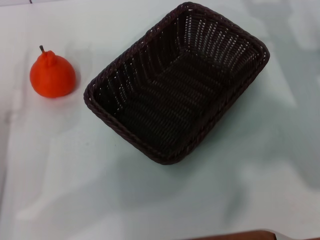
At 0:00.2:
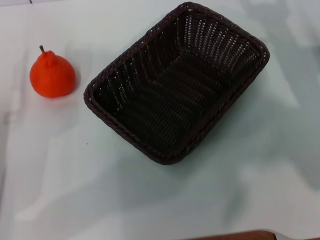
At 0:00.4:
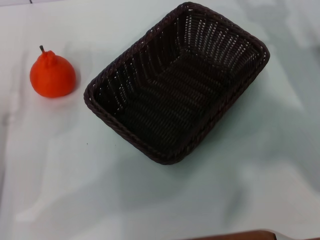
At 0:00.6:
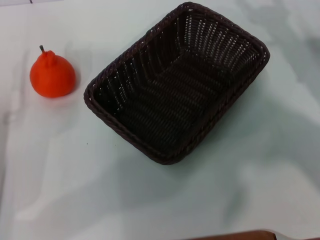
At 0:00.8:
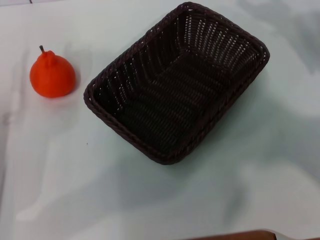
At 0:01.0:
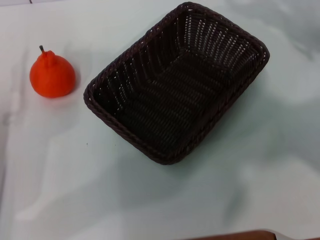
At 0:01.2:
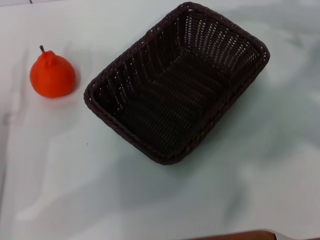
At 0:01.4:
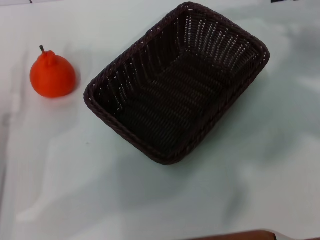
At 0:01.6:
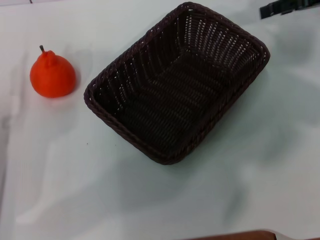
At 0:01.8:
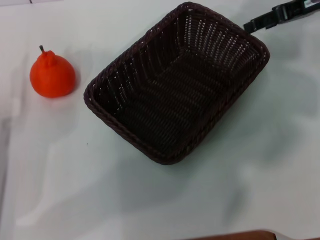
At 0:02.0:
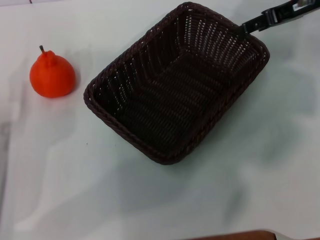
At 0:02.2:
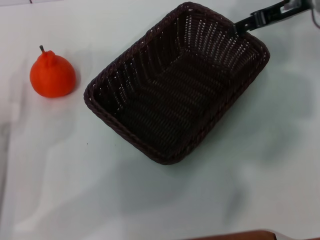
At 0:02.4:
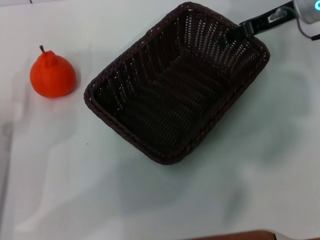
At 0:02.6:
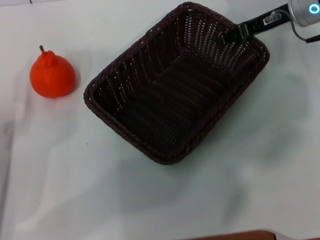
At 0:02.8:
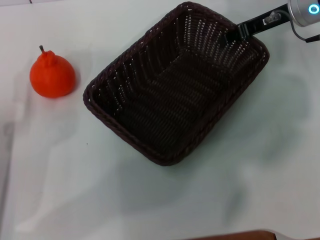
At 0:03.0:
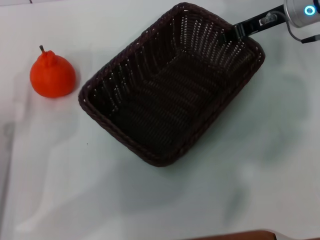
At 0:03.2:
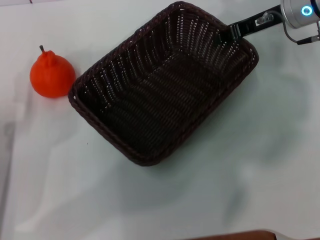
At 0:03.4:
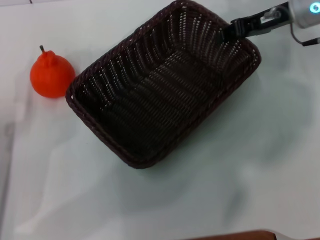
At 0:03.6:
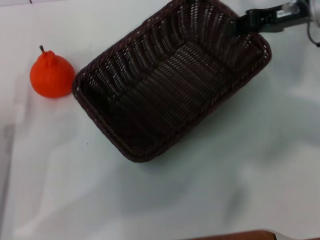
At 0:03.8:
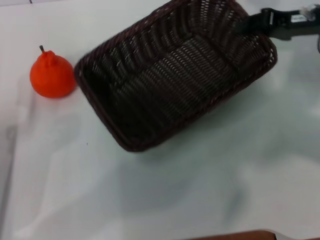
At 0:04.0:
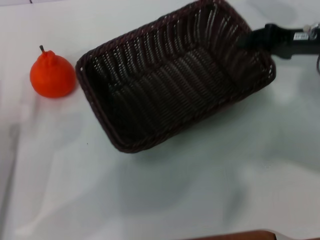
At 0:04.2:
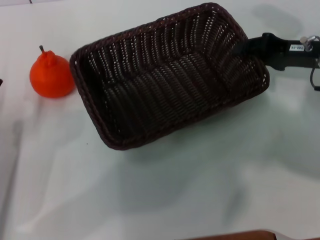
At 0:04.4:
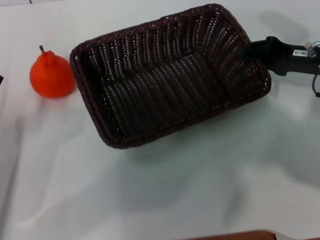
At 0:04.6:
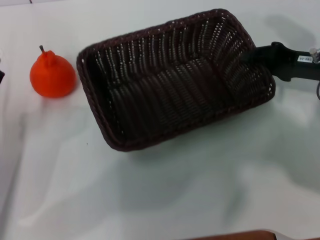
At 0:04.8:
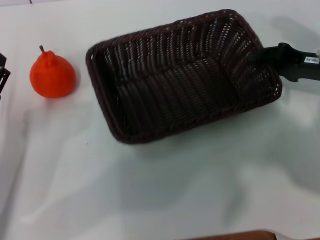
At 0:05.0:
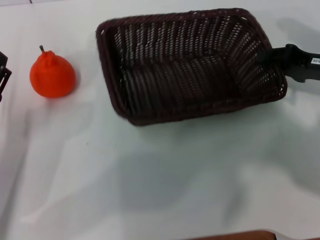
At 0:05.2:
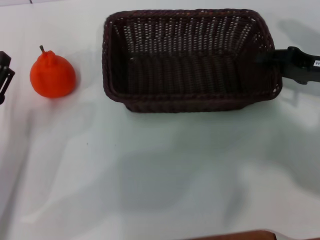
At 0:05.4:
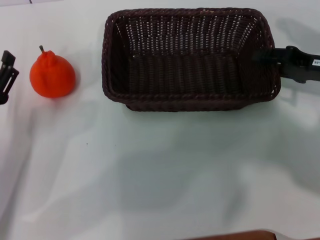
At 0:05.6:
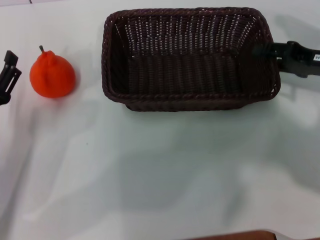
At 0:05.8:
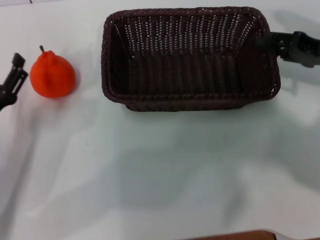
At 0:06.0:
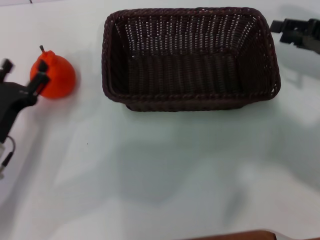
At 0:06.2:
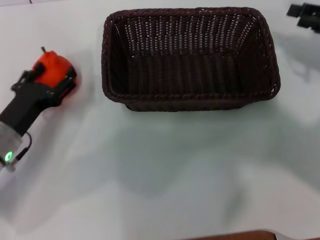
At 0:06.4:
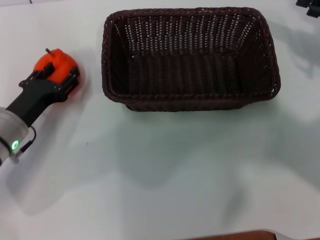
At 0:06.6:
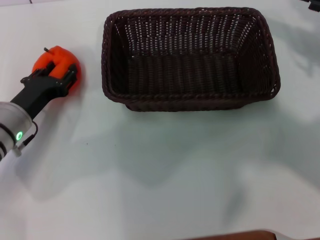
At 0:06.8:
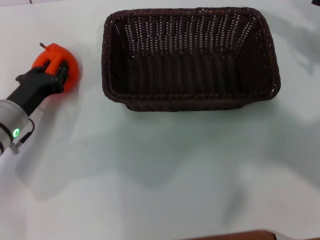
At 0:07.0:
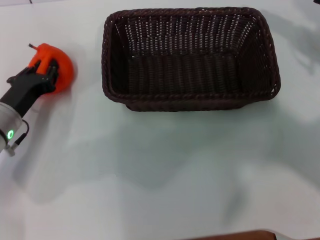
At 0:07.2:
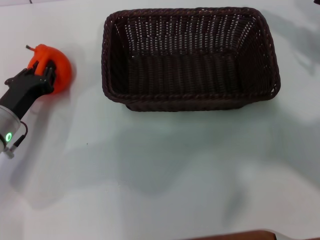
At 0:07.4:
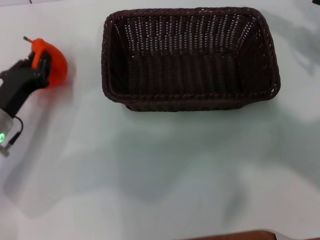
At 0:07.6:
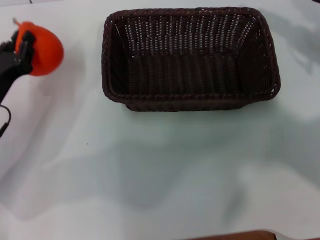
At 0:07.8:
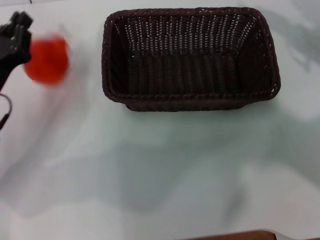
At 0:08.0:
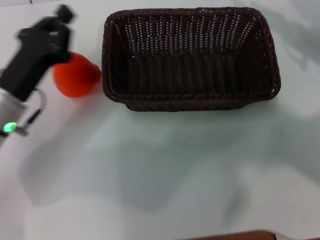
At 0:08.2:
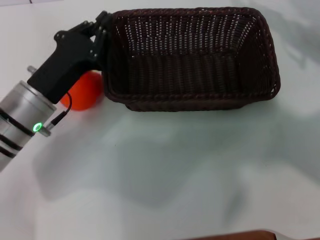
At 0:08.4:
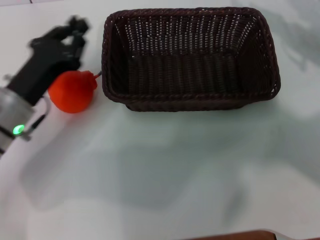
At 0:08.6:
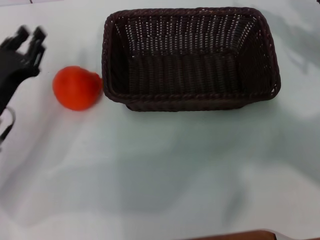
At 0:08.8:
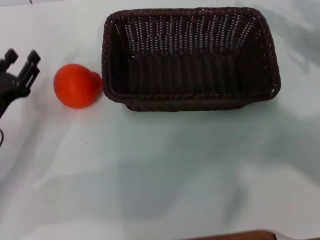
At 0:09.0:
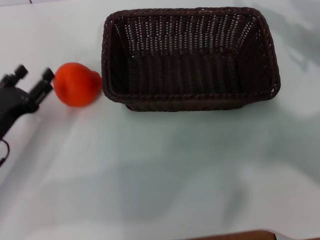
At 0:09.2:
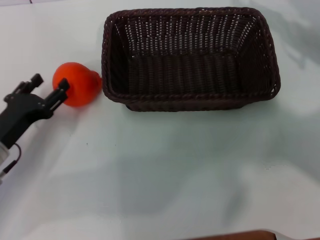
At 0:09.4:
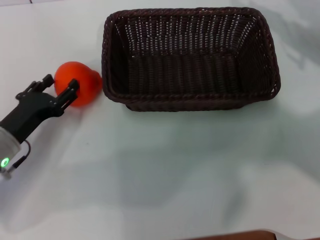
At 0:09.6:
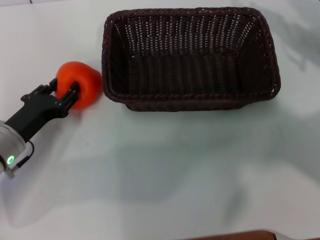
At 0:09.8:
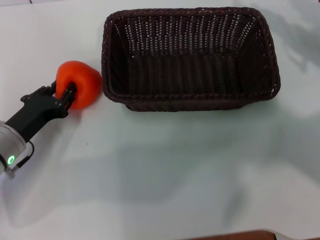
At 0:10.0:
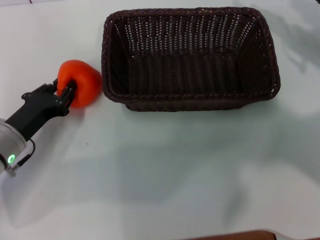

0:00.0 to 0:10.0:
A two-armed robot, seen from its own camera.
Task of the whole recording: the right gripper pick up the black basket and place it horizontally in the middle of the table, the left gripper pick up the orange and place it into the black basket.
Step, 0:00.0 to 0:03.6: Pick up the dark basket with the right gripper.
Step, 0:03.8 to 0:06.0: Place the dark basket in the center of view with the right gripper.
0:00.0 to 0:01.4: The right gripper shifts roughly 15 cm upward and forward.
0:01.4 to 0:02.8: The right gripper travels to the left and downward by approximately 10 cm.
0:02.8 to 0:04.2: The right gripper goes some 10 cm backward, and closes its fingers.
0:04.2 to 0:05.8: The right gripper opens.
0:05.8 to 0:07.2: The right gripper changes place by some 5 cm; the left gripper moves forward, roughly 5 cm, and closes its fingers.
0:07.2 to 0:08.6: The left gripper travels to the right and back again, about 5 cm each way.
0:08.6 to 0:10.0: The left gripper opens, then closes again.

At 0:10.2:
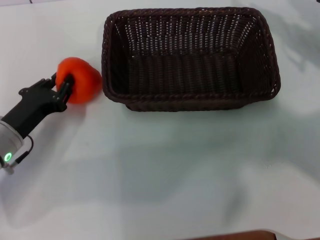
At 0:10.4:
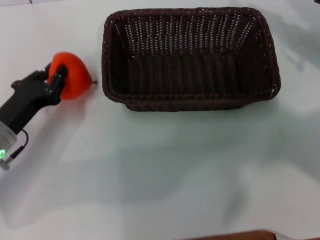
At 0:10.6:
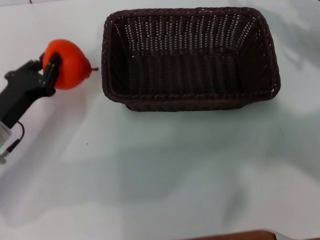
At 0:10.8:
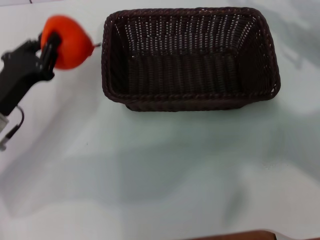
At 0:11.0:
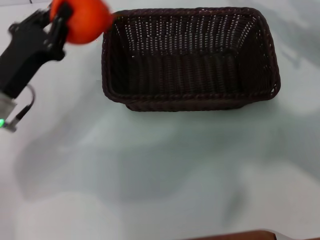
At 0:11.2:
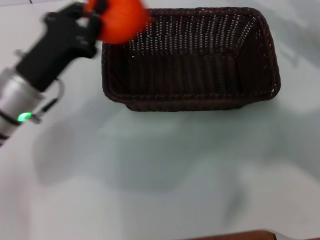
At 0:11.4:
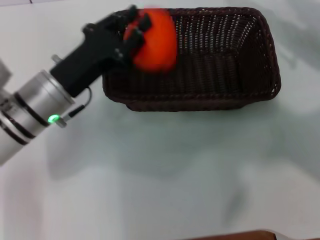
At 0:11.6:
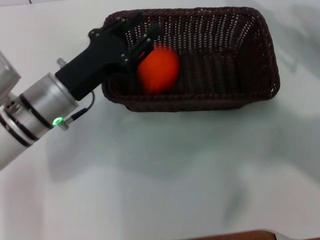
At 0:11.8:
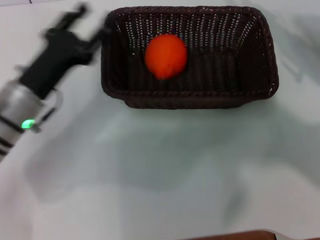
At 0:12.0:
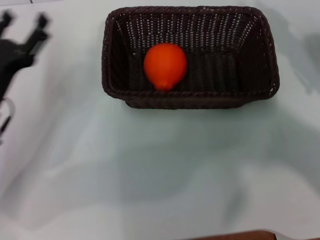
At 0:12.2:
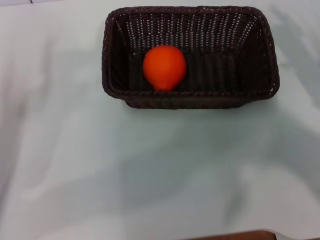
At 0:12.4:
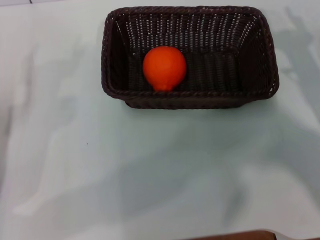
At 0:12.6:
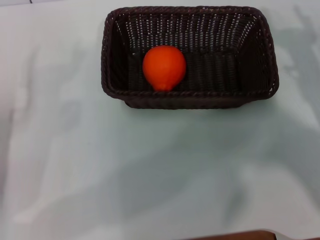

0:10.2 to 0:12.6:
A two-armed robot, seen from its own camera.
Task of the whole recording: the right gripper pick up the black basket and place it horizontally in the middle of the table, the left gripper pick up the orange and place it into the black basket.
Step, 0:10.8 to 0:11.6: Place the orange into the dark basket with the left gripper.
0:10.2 to 0:11.4: The left gripper travels to the right and upward by about 10 cm.
0:11.4 to 0:12.6: The right gripper goes roughly 10 cm backward and downward; the left gripper heads to the left and backward, covering about 15 cm, and opens up.
